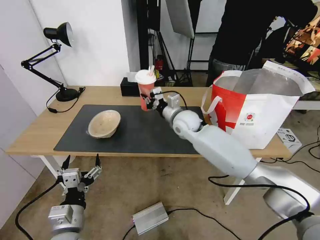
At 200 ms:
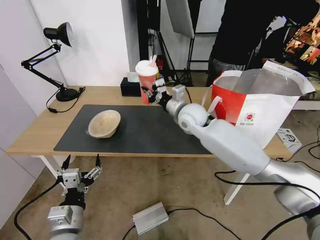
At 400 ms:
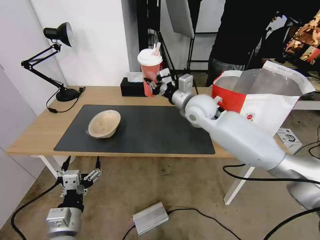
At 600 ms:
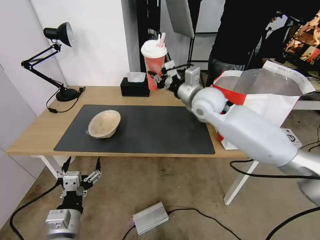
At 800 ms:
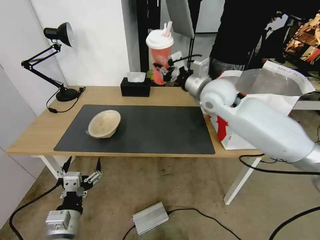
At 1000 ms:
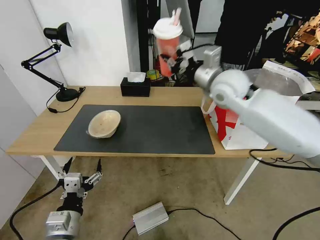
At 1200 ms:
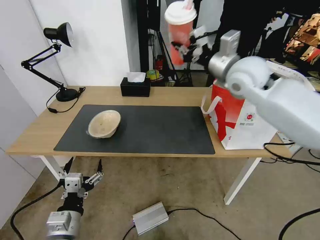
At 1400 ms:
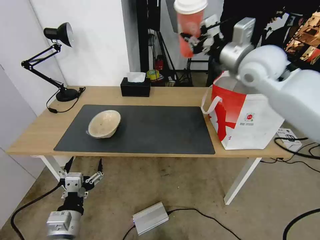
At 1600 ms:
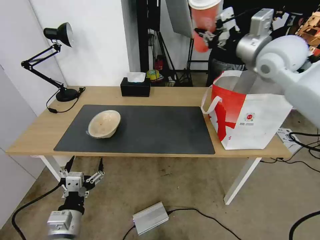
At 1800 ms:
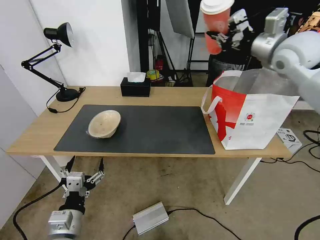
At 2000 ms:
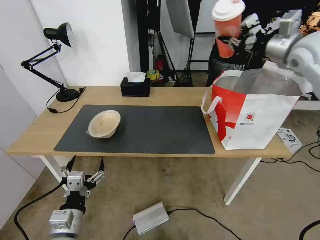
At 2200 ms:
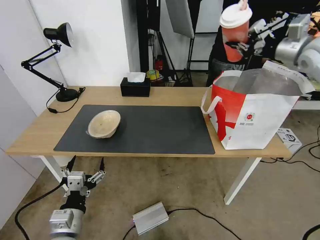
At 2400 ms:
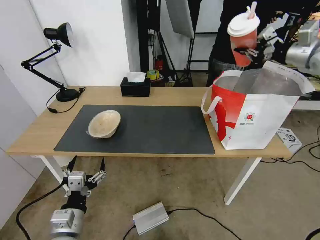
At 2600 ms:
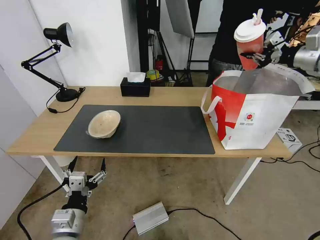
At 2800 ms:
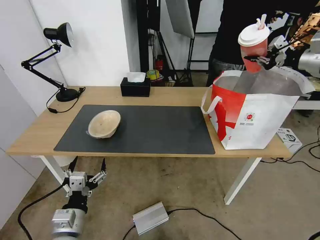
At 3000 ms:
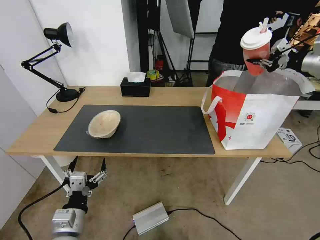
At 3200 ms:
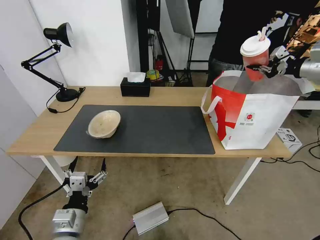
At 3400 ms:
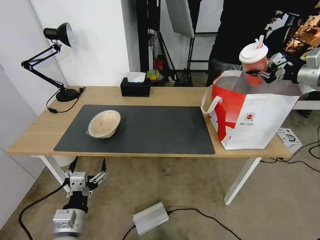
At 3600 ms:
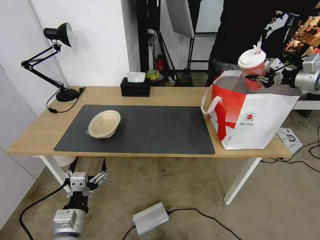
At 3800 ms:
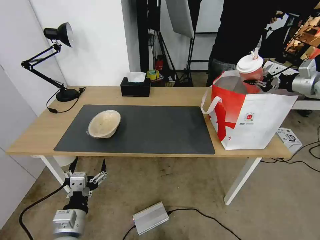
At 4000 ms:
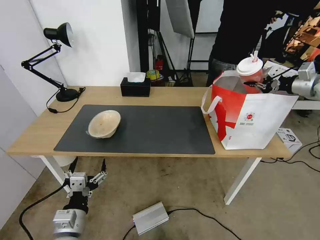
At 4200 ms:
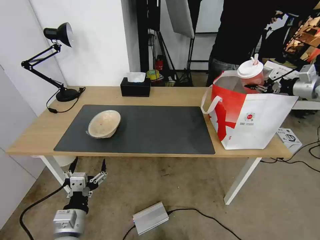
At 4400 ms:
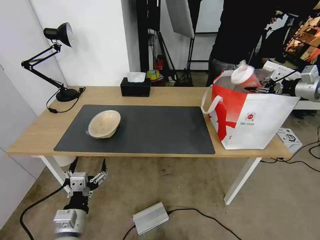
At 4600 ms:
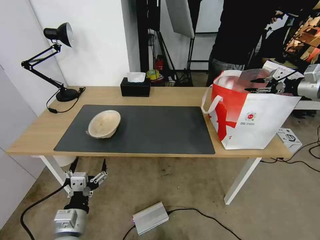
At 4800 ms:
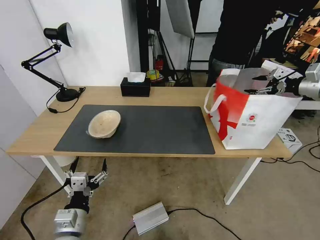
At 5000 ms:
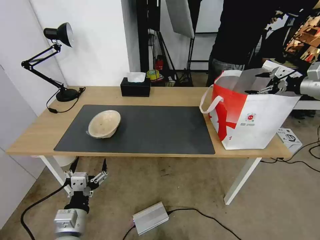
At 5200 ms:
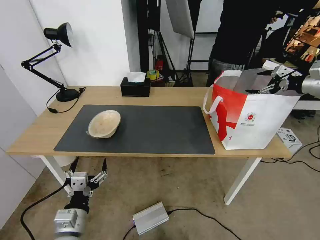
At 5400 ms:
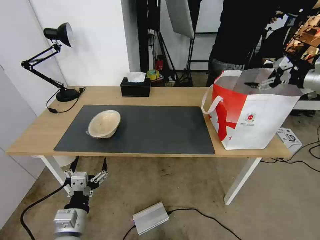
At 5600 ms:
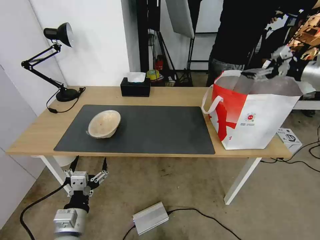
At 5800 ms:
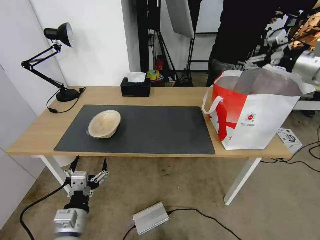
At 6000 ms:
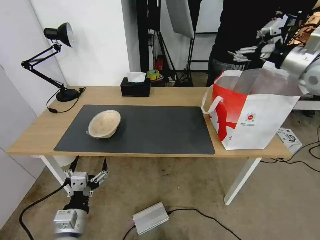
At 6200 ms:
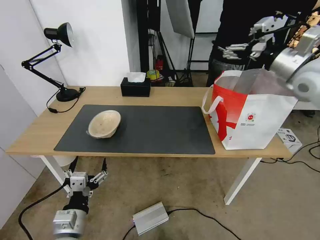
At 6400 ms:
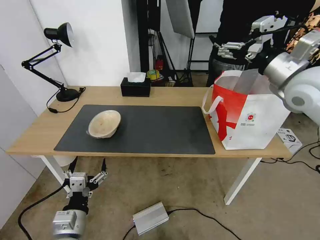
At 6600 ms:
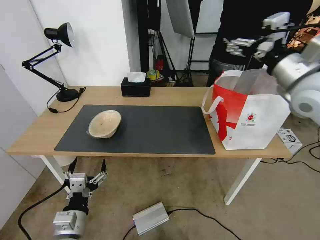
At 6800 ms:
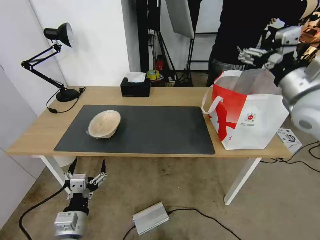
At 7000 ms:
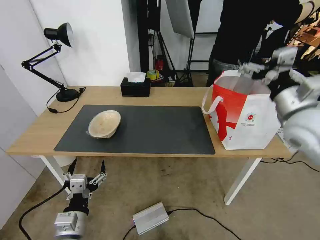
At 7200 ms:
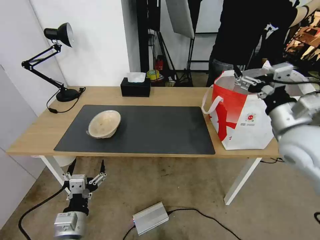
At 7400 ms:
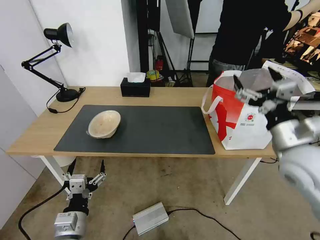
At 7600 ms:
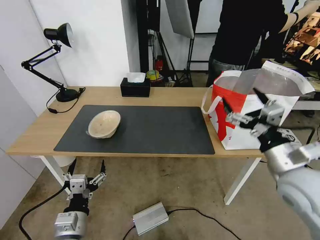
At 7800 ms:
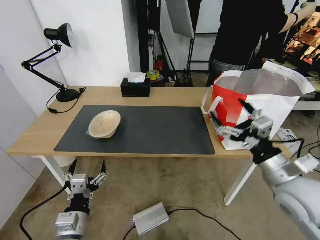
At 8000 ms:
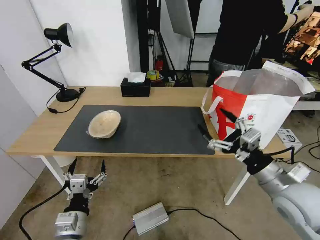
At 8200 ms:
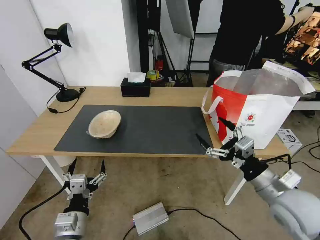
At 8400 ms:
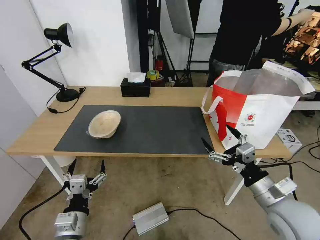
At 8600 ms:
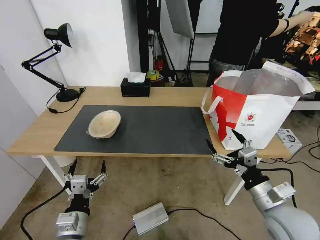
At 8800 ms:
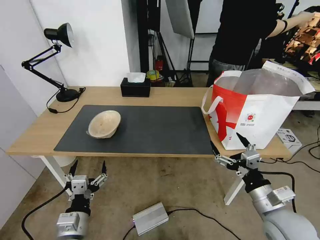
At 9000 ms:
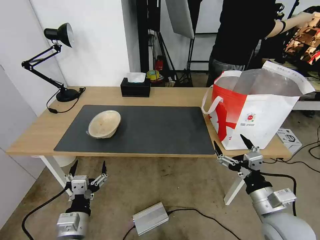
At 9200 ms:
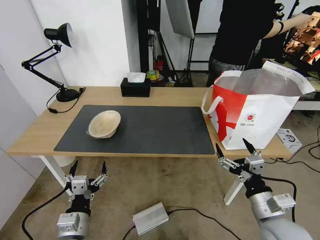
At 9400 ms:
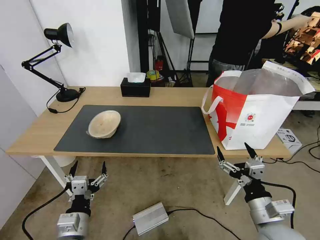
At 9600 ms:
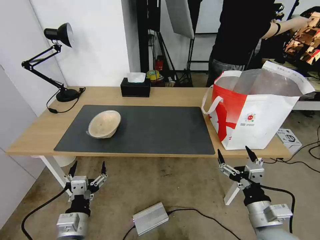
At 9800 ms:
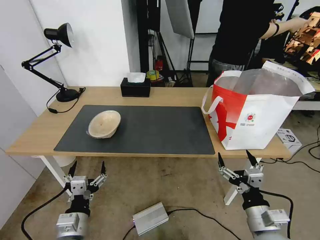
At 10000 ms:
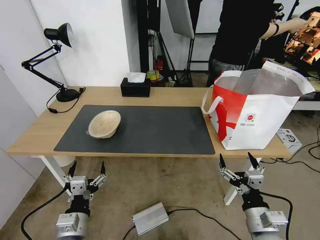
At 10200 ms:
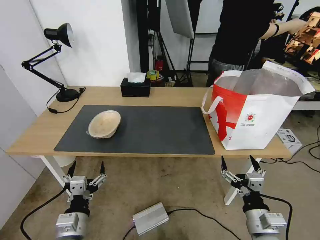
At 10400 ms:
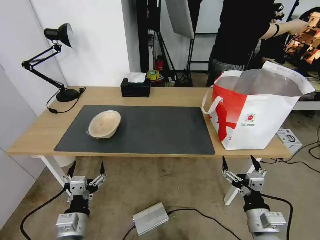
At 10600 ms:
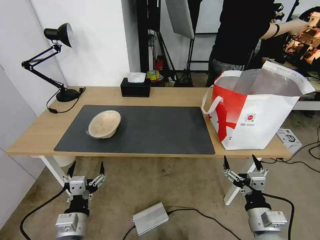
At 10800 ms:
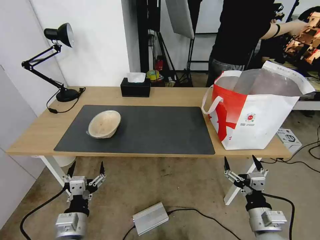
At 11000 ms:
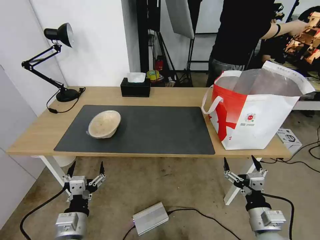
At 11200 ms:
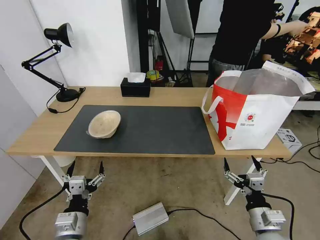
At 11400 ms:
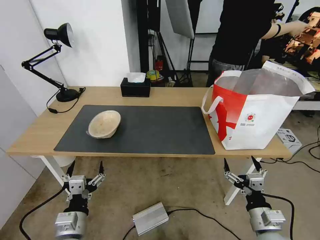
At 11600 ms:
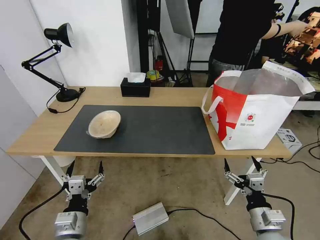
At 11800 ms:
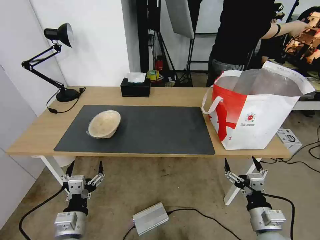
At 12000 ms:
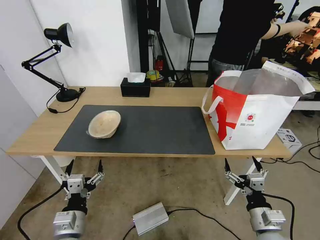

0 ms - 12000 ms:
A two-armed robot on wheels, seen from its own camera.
Task of the whole recording: Pick up the trash from the table and place it into the takeout bag.
0 ms - 1600 ms: The right gripper moves upward and to the right, approximately 30 cm.
1600 ms - 3000 ms: The right gripper travels to the right by roughly 25 cm.
3000 ms - 4400 ms: The right gripper goes about 10 cm downward.
4400 ms - 6000 ms: The right gripper goes approximately 15 cm to the left and upward, and opens.
6000 ms - 7600 ms: The right gripper moves backward, downward and to the left, some 30 cm.
7600 ms - 9000 ms: The right gripper heads downward and backward, covering some 10 cm.
9000 ms - 10400 ms: The right gripper travels downward by roughly 5 cm.
10400 ms - 12000 ms: The grippers stay close to where they were, moving slightly.

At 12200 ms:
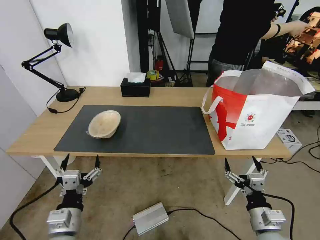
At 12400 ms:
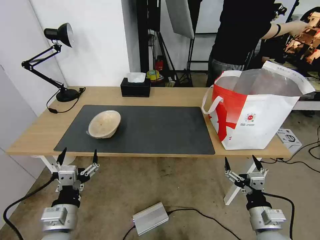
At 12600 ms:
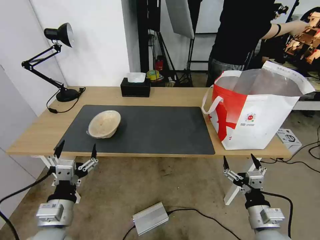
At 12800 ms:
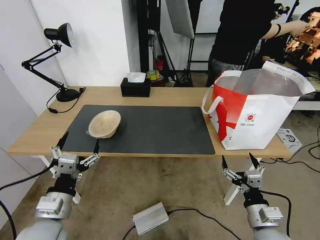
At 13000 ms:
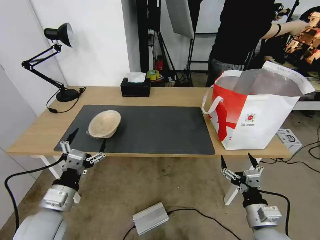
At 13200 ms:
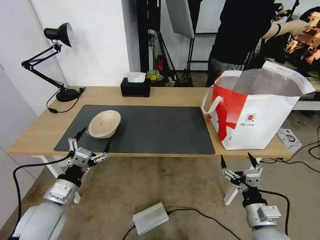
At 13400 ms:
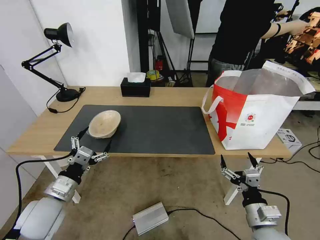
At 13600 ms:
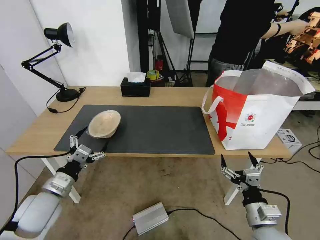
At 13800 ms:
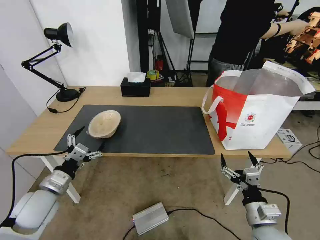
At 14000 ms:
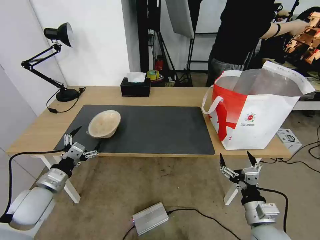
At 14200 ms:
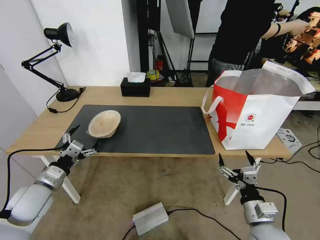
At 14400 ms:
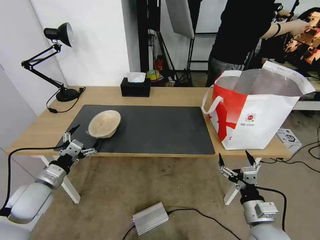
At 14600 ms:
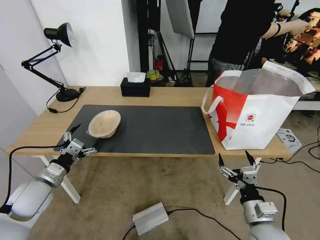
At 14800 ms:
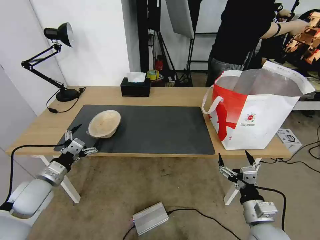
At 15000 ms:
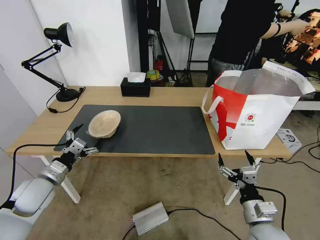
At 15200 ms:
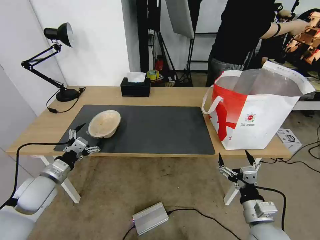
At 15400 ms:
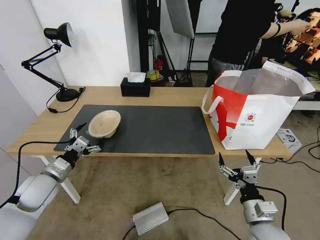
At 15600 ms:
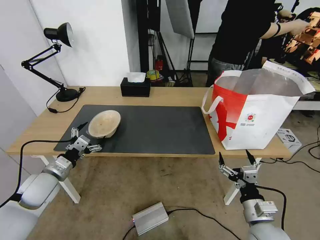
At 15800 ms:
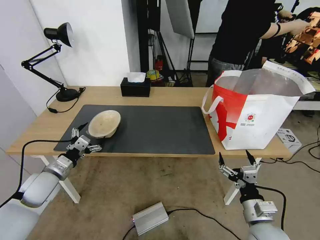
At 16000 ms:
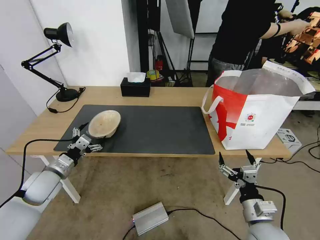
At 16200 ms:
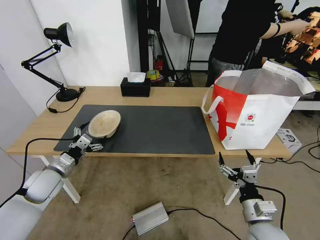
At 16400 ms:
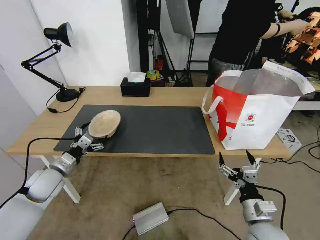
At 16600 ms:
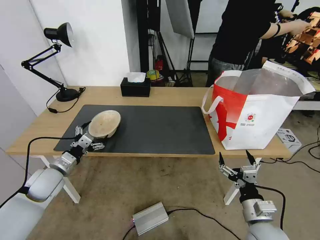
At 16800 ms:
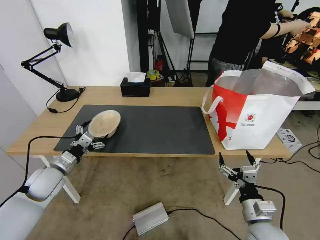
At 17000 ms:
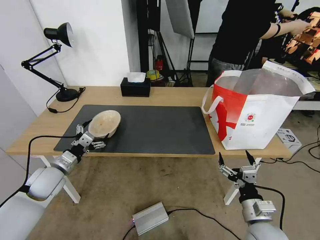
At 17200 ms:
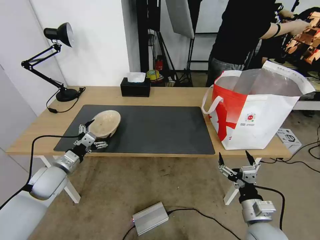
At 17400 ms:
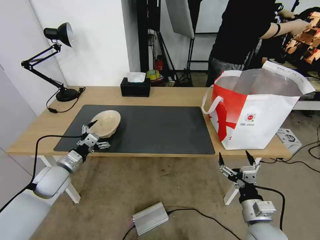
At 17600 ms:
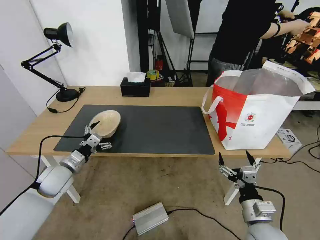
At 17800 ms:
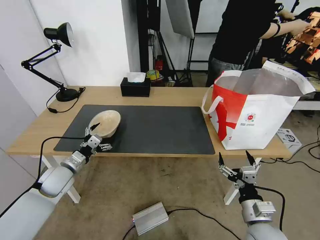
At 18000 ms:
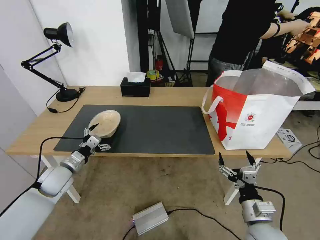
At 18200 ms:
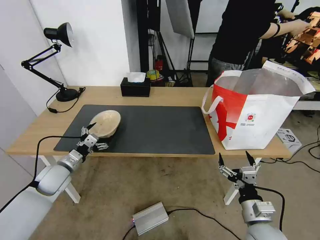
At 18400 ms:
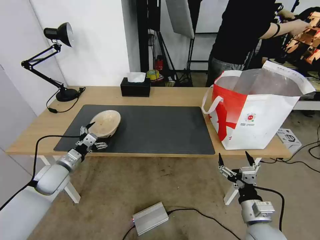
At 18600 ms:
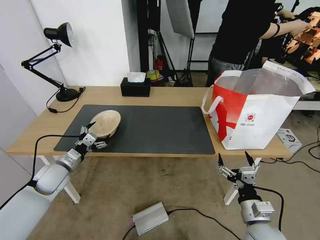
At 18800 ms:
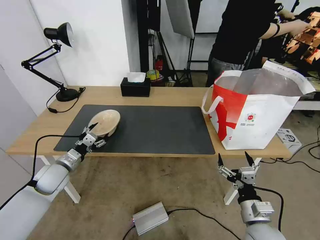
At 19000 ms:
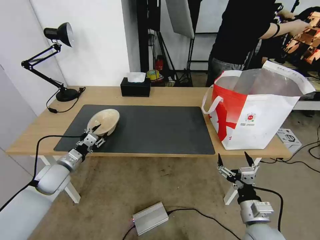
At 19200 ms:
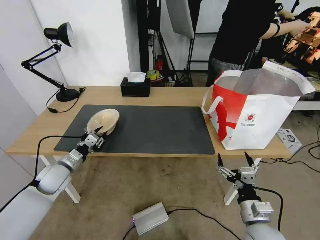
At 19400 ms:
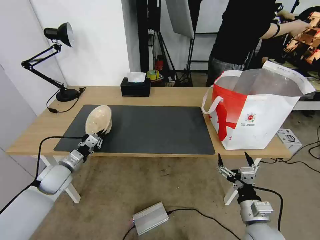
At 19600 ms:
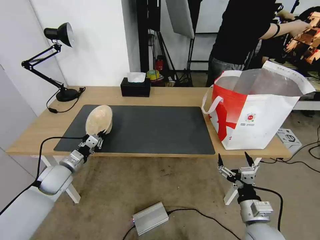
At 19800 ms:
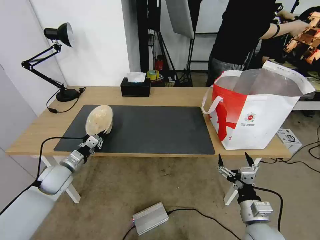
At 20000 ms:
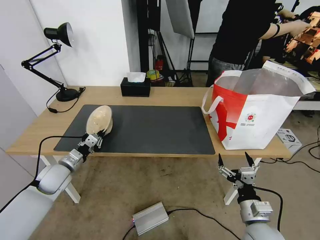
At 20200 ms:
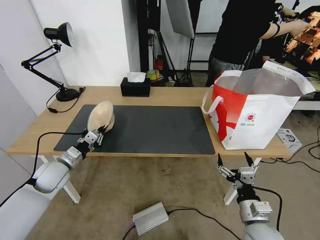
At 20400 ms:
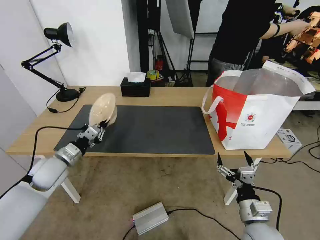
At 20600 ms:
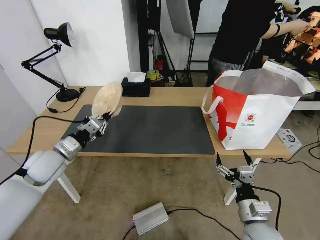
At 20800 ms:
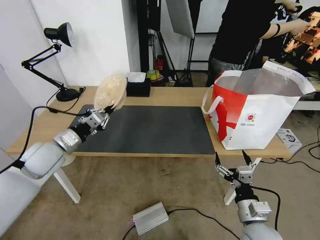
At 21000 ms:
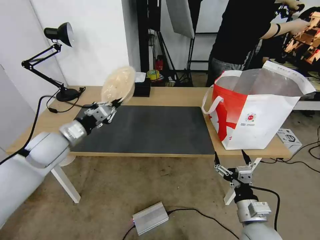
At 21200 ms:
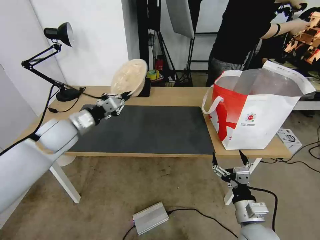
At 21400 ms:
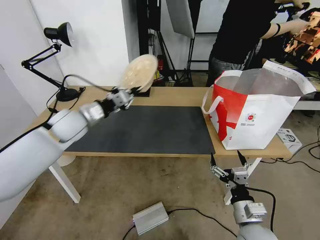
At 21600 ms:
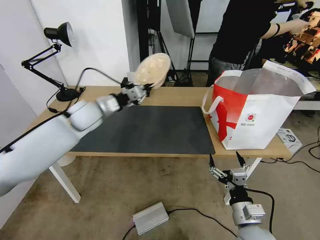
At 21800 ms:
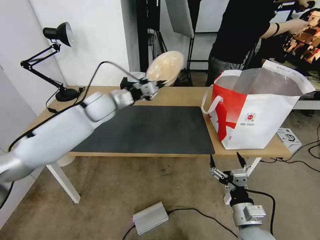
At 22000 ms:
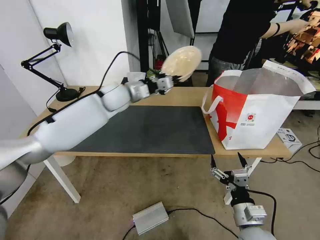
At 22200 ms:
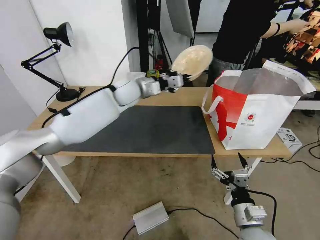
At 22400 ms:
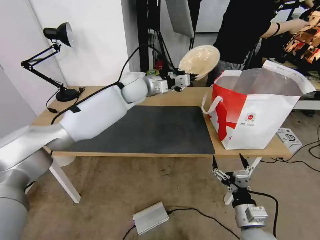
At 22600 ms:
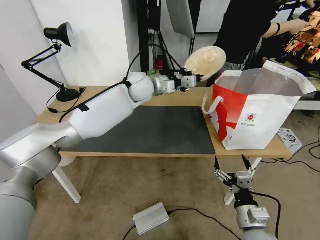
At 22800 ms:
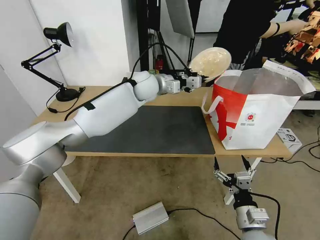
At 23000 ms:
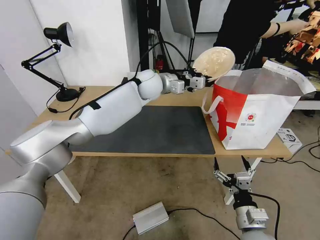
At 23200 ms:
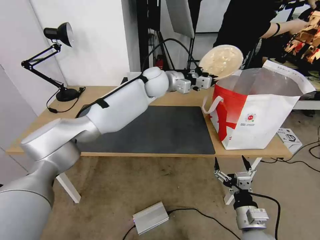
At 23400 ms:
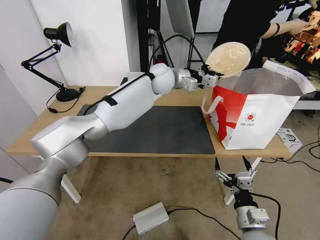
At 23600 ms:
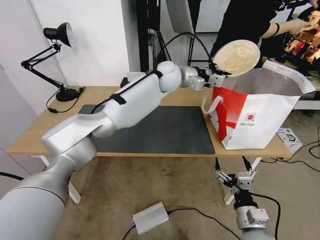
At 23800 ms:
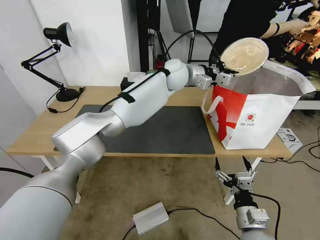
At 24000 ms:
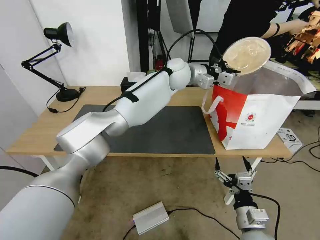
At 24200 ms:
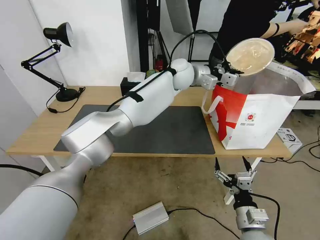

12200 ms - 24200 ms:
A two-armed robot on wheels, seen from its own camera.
Task of the whole recording: Pick up the trash from the table and place it into the takeout bag.
12200 ms - 13800 ms: The left gripper moves forward and to the left, roughly 15 cm.
13800 ms - 15200 ms: The left gripper changes place by some 5 cm.
15200 ms - 16600 ms: There are only small adjustments of the grippers.
16600 ms - 18200 ms: The grippers stay close to where they were, moving slightly.
18200 ms - 19800 ms: The left gripper closes its fingers.
19800 ms - 21200 ms: The left gripper is displaced upward by some 15 cm.
21200 ms - 22600 ms: The left gripper is displaced to the right and forward by roughly 30 cm.
22600 ms - 24200 ms: The left gripper goes roughly 15 cm to the right.
